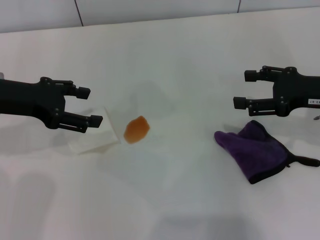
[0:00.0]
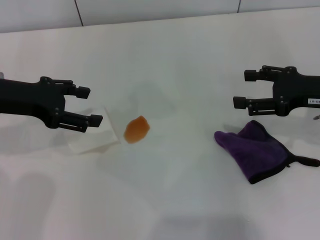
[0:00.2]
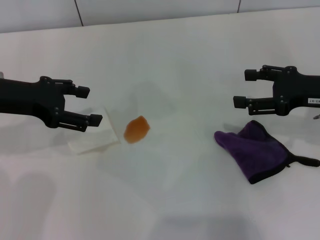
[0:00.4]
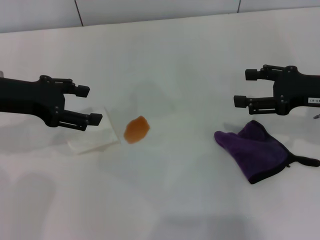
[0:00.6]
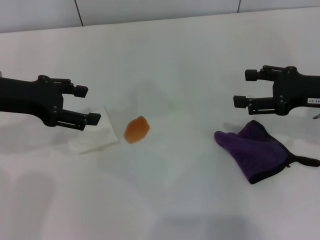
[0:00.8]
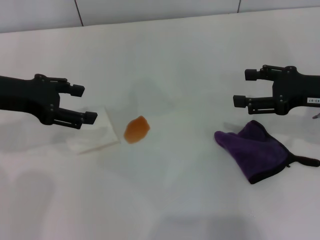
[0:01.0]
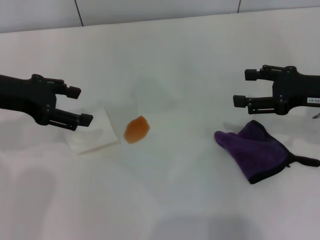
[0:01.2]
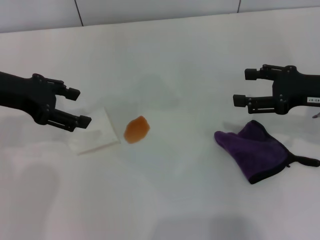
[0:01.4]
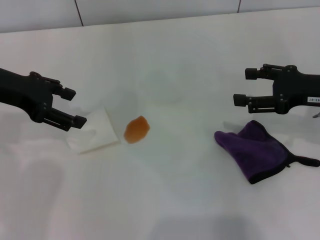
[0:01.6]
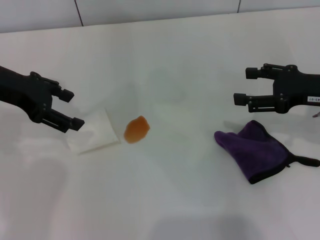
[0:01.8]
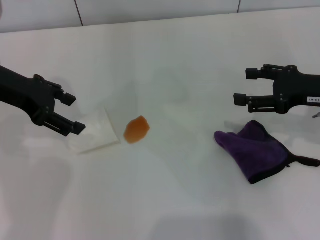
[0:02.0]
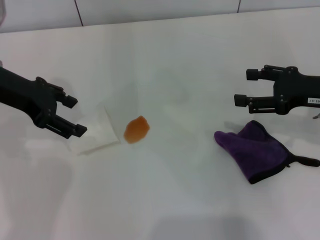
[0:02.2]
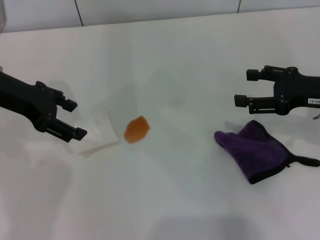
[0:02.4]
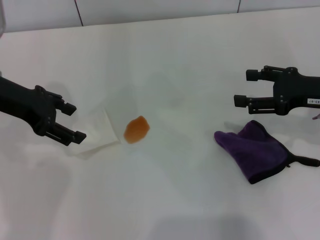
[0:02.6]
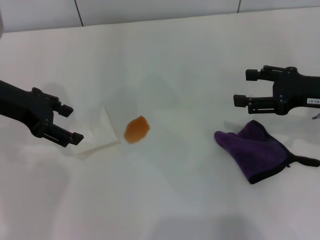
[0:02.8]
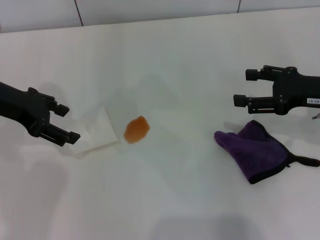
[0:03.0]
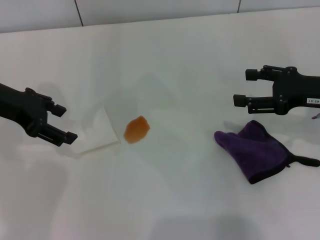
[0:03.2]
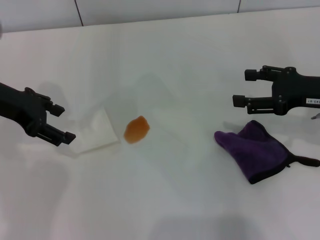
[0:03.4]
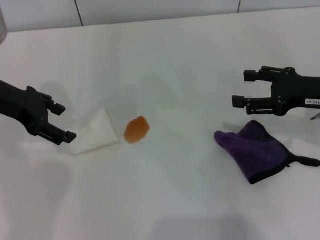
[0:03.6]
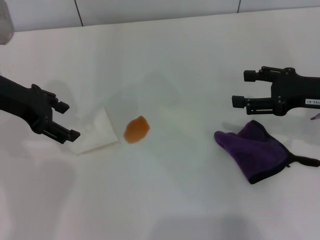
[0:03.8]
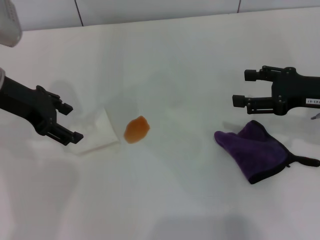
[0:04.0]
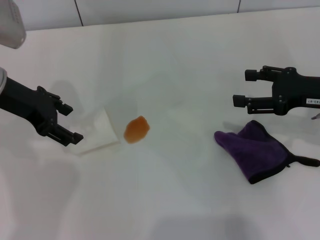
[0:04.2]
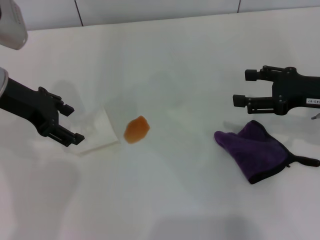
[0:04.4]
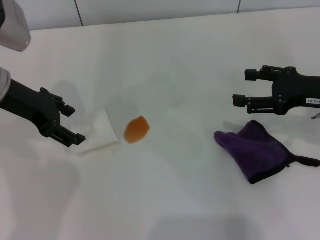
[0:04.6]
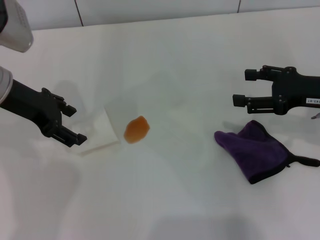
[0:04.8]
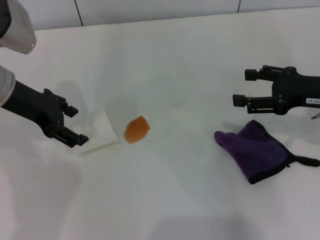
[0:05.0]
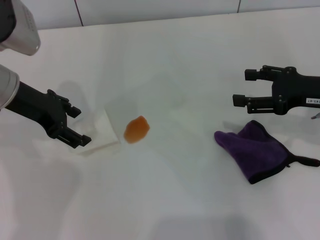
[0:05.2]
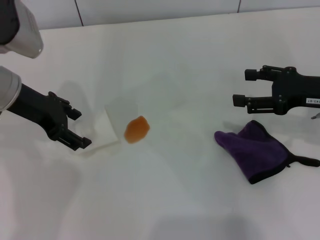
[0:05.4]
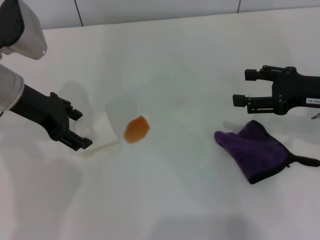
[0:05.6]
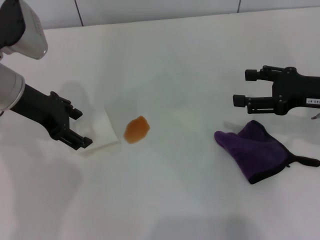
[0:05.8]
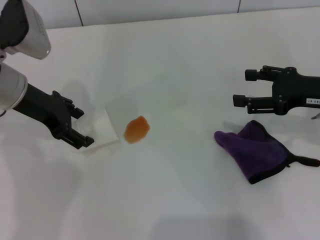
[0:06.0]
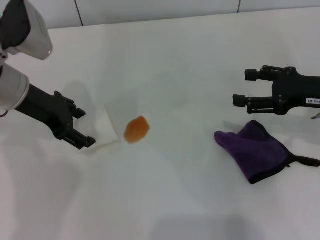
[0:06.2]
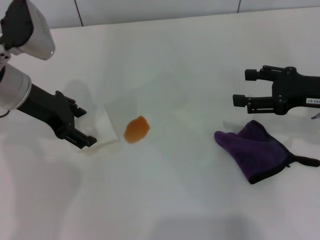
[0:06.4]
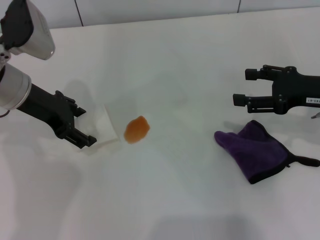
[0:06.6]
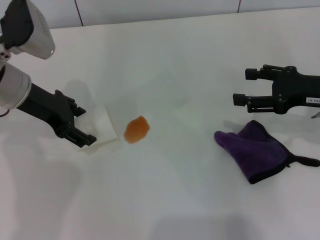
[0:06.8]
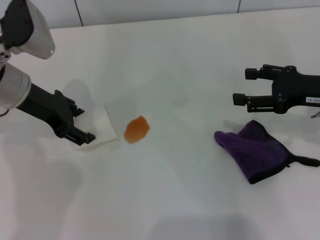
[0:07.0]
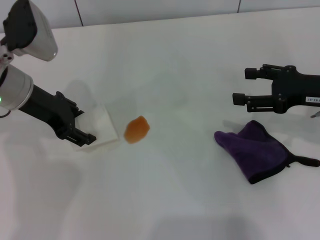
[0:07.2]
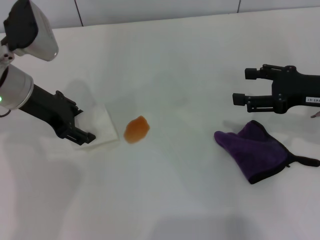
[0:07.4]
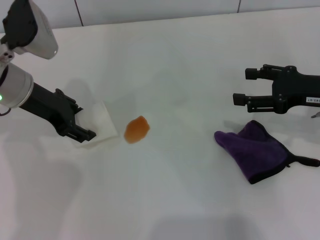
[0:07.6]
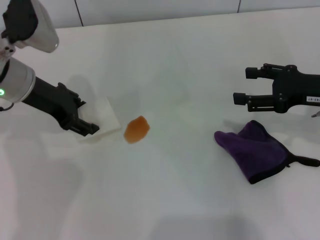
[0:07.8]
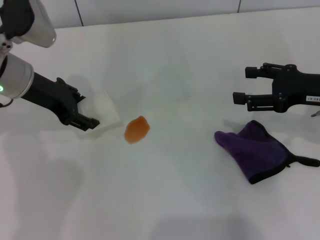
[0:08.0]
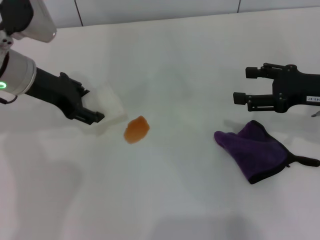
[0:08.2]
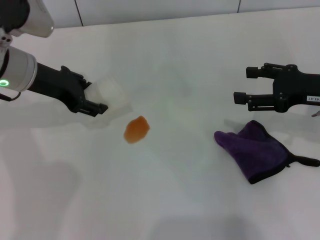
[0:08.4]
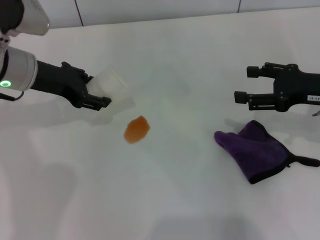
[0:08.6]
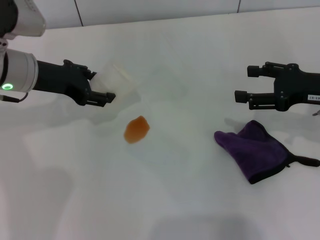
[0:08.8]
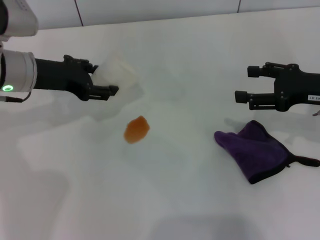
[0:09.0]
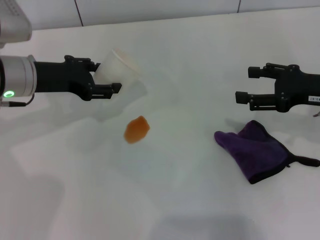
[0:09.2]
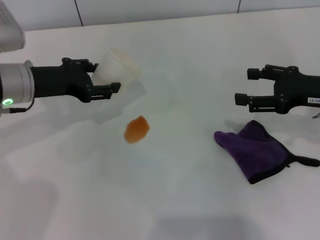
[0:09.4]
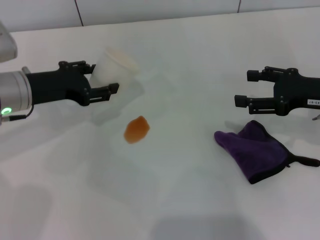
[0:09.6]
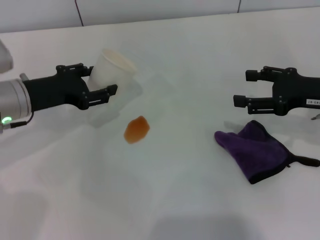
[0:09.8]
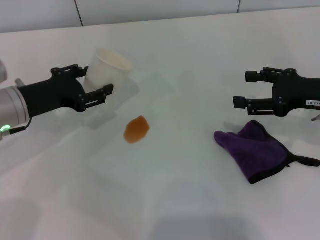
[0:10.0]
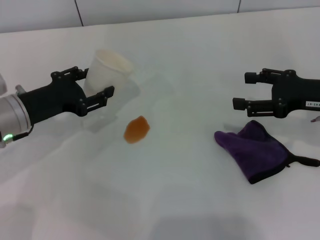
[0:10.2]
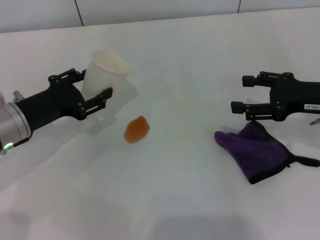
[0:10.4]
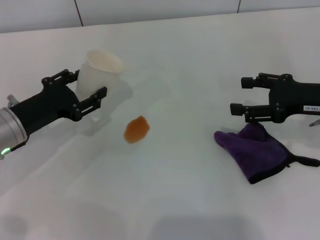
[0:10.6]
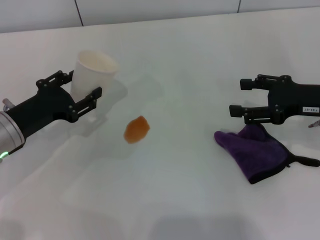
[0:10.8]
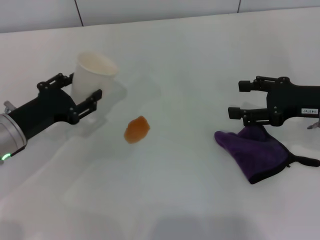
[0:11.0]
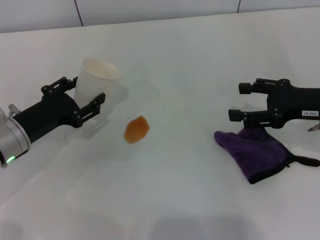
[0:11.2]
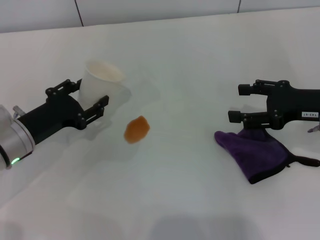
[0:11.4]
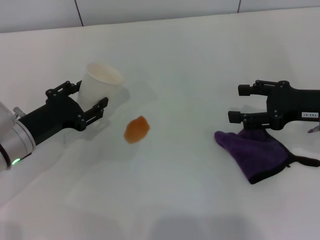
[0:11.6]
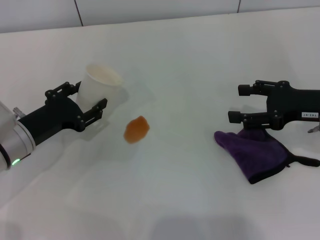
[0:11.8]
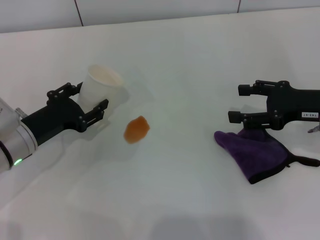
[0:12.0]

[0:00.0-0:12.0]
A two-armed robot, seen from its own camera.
Step, 0:00.0 to 0:07.2: Grasp the paper cup with the left gripper.
0:00.0 to 0:03.0: The grippers make only small movements.
0:03.0 to 0:06.0: The grippers move only a little.
0:06.0 to 0:07.6: The left gripper closes.
0:09.0 to 0:10.4: The left gripper goes some 10 cm downward and backward.
0:10.4 to 0:12.0: The grippers stay close to where they were, moving slightly.

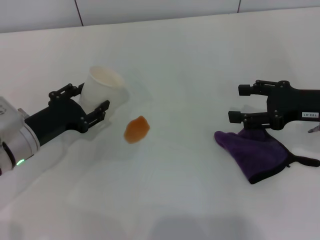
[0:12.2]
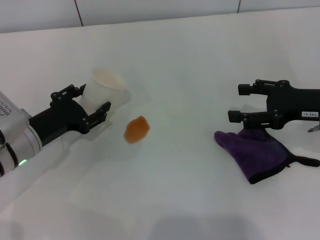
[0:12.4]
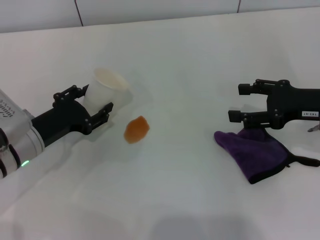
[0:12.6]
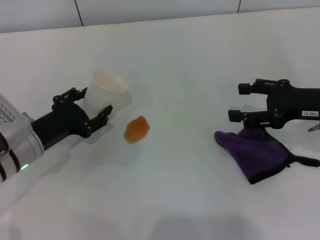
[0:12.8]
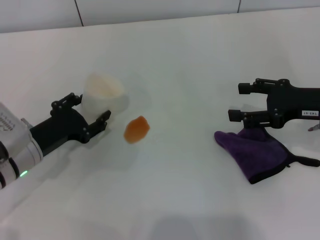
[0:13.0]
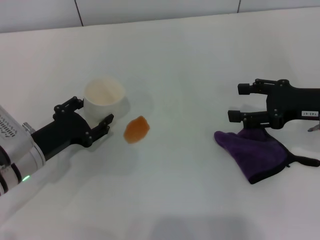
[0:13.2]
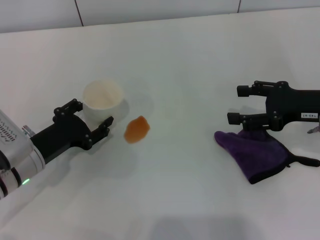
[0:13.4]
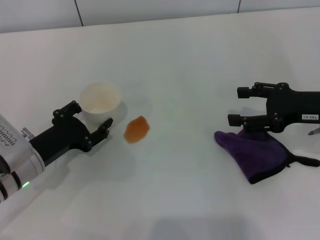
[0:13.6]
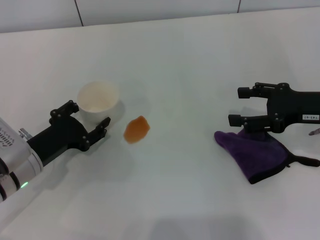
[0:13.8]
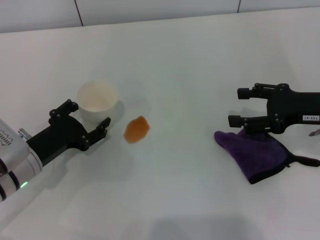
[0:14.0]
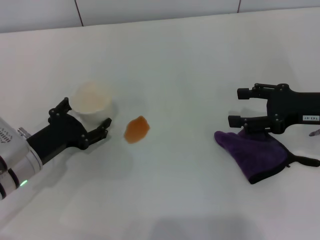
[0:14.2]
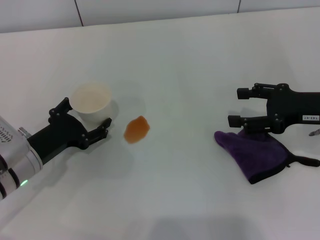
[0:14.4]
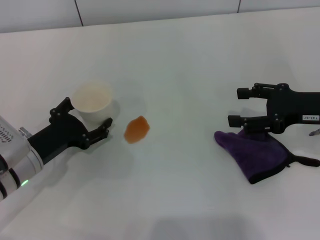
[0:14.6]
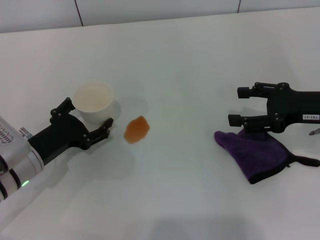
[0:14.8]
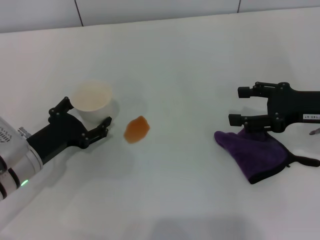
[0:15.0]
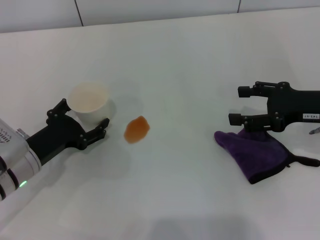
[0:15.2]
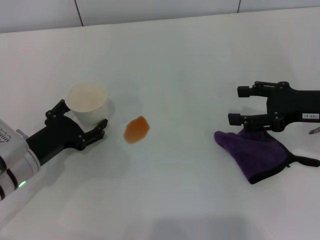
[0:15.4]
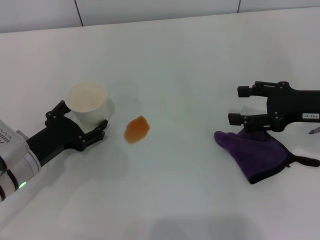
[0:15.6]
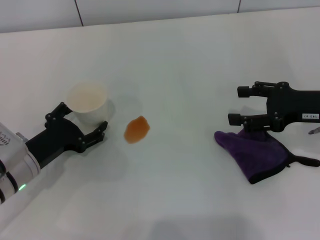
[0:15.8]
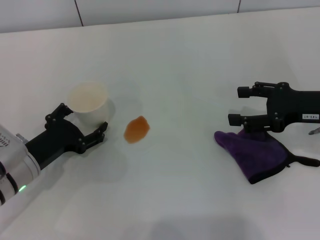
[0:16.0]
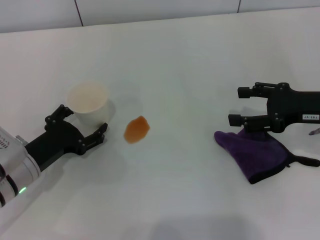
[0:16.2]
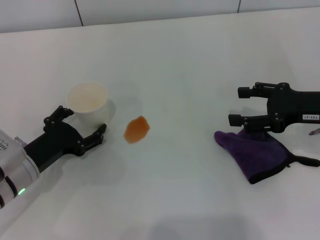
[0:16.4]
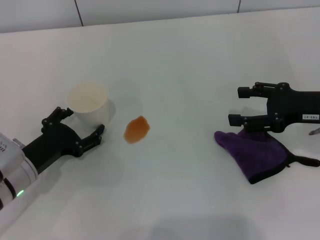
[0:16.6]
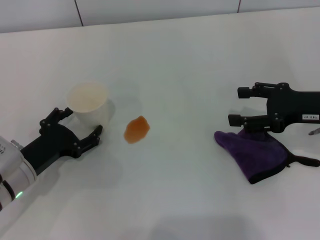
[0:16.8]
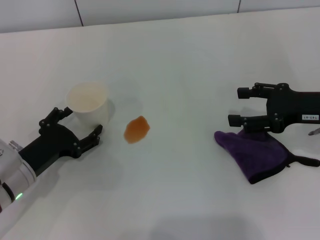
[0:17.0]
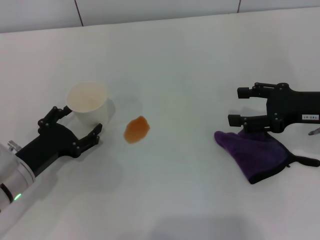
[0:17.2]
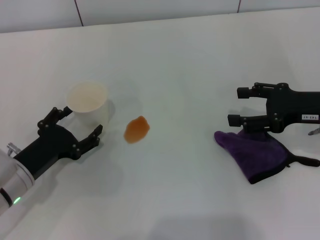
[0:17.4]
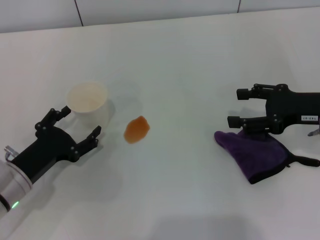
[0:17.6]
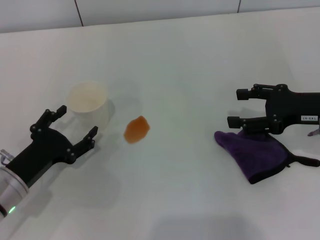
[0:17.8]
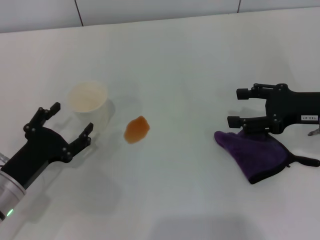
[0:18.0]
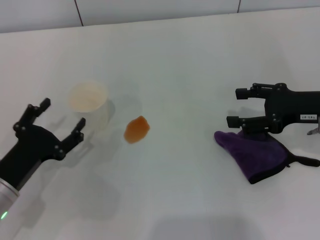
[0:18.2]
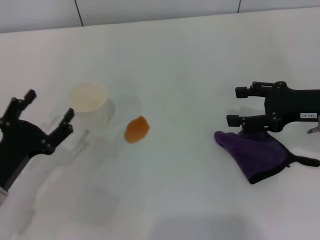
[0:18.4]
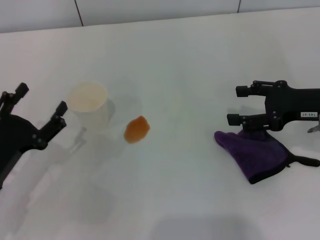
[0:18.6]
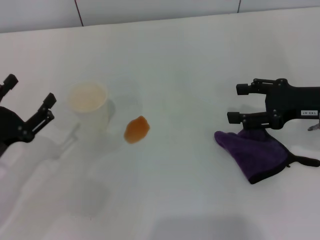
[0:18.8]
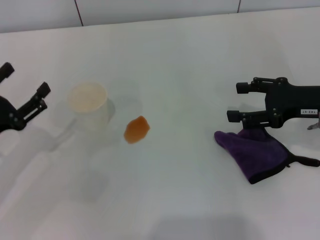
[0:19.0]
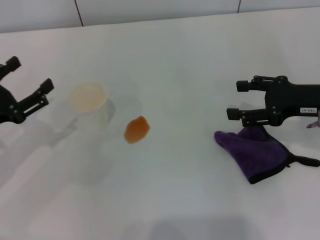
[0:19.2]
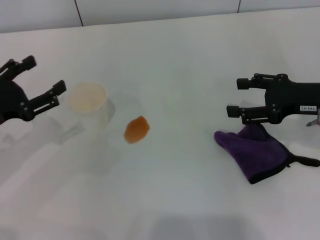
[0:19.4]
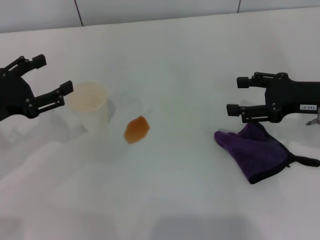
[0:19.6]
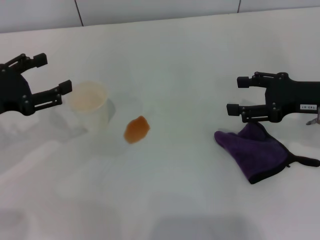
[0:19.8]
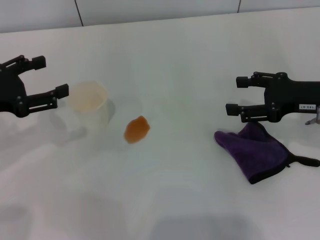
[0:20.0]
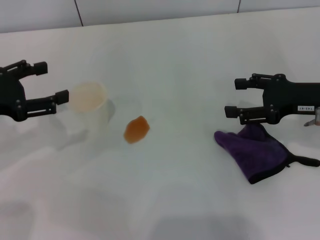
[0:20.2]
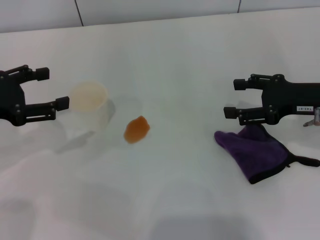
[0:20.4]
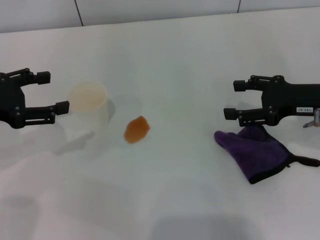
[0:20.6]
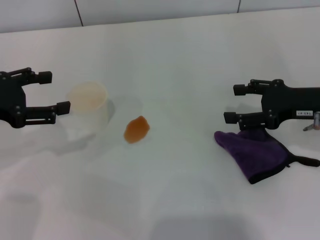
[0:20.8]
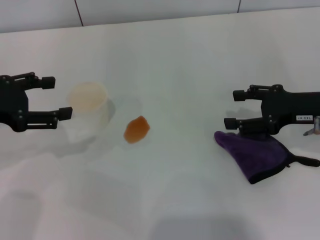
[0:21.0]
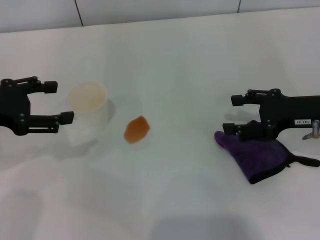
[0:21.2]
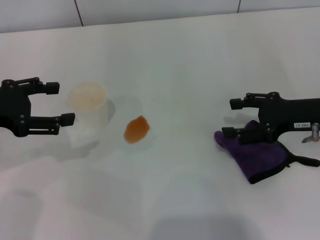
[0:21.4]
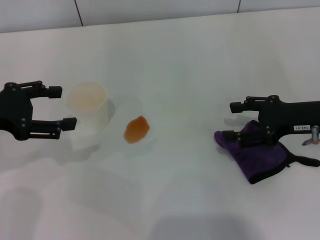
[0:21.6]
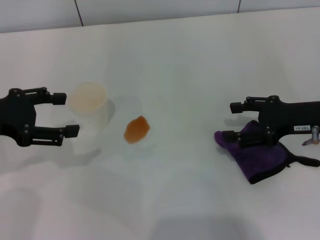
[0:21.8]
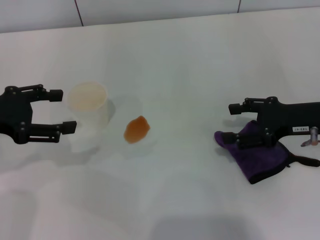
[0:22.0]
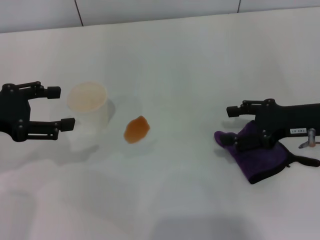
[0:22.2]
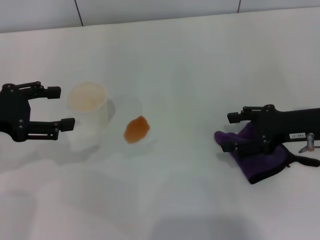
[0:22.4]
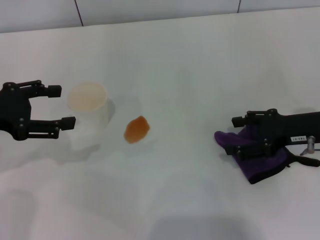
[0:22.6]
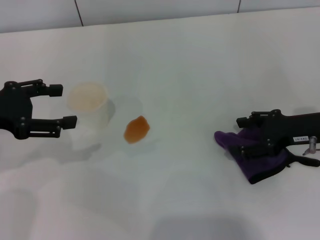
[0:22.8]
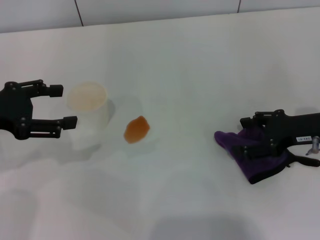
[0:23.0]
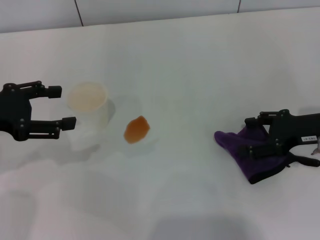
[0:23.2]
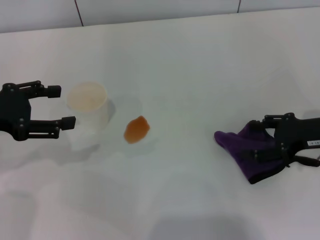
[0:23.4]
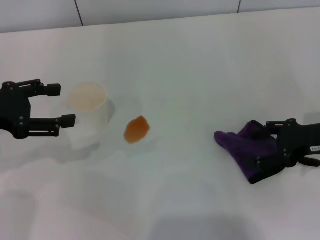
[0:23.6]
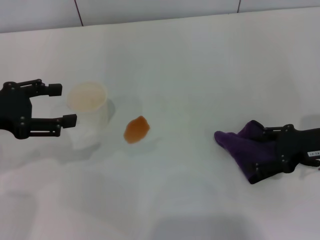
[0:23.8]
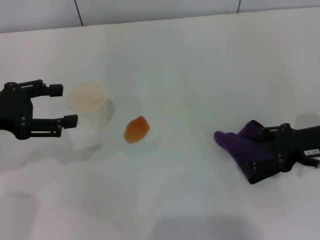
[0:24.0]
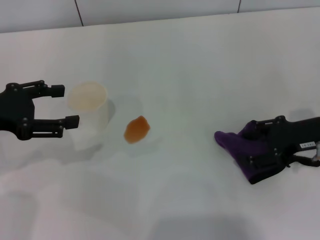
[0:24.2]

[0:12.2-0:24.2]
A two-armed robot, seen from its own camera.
Step, 0:12.2 to 0:17.8: Stand the paper cup upright with the left gripper.
0:12.2 to 0:13.8: The grippers move only a little.
0:13.8 to 0:15.2: The left gripper opens up.
0:15.2 to 0:18.2: The grippers move only a little.
0:18.2 to 0:19.8: The left gripper goes roughly 15 cm upward and forward.
0:19.8 to 0:21.2: The grippers move only a little.
0:21.2 to 0:24.2: There are only small adjustments of the grippers.
